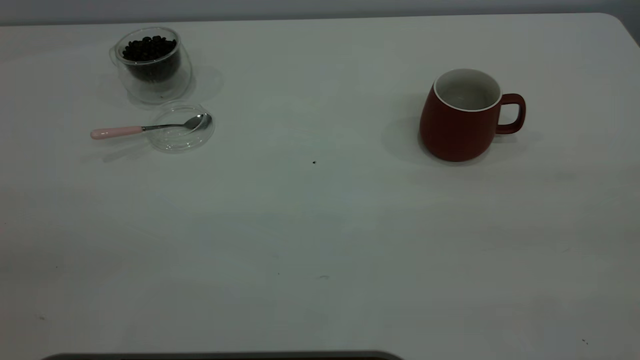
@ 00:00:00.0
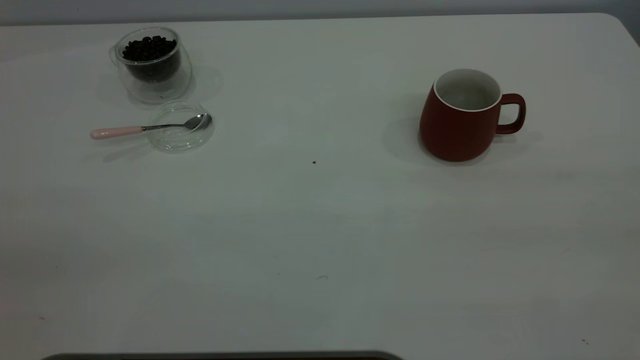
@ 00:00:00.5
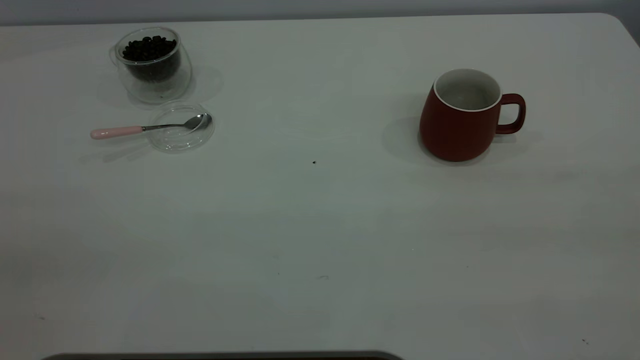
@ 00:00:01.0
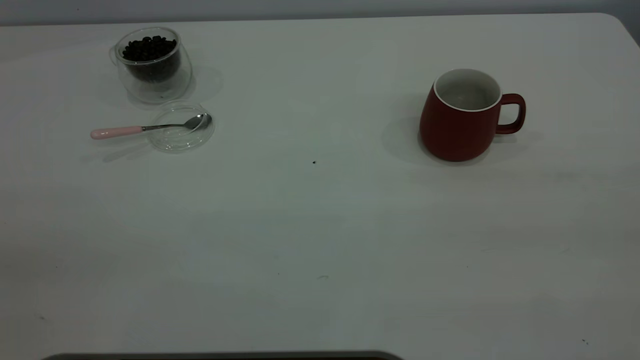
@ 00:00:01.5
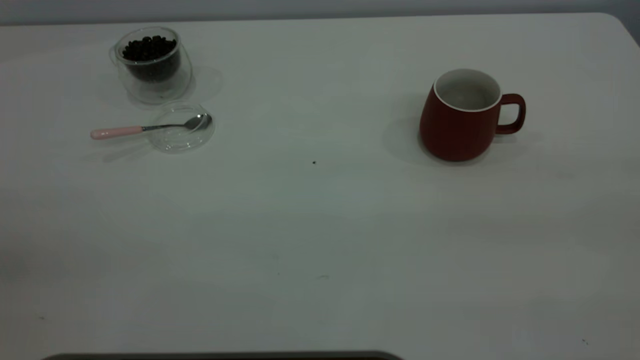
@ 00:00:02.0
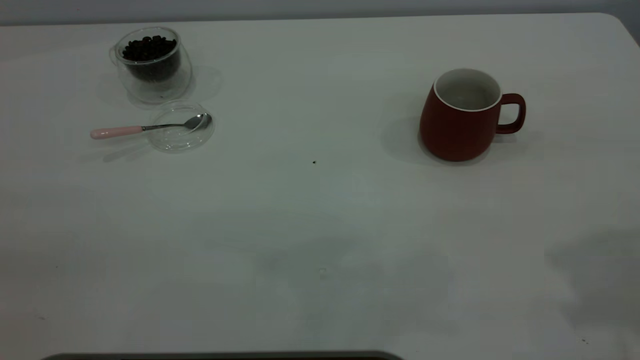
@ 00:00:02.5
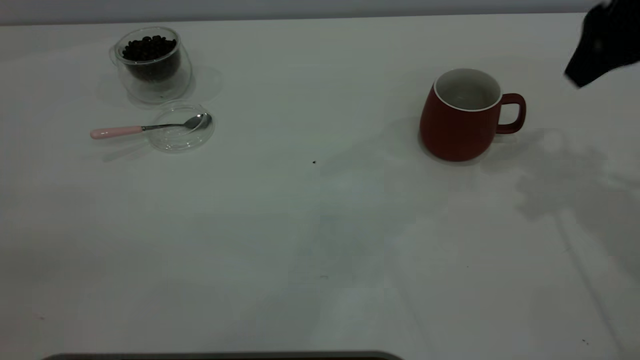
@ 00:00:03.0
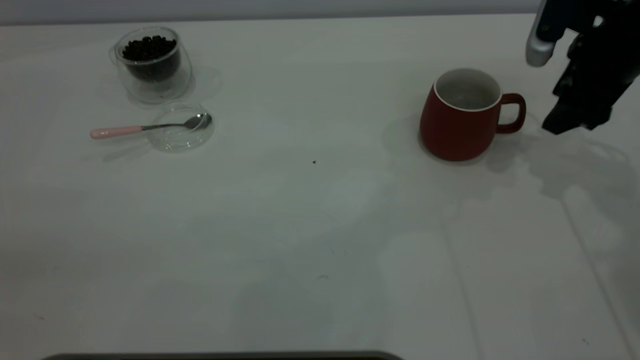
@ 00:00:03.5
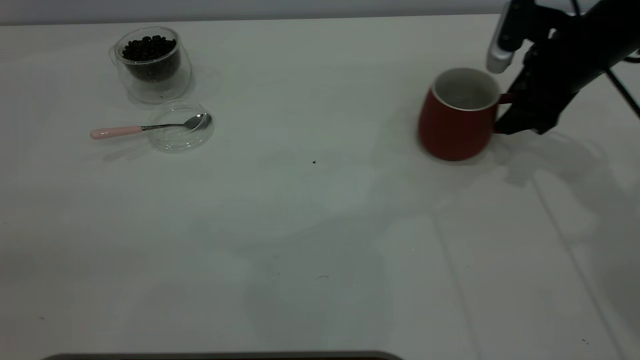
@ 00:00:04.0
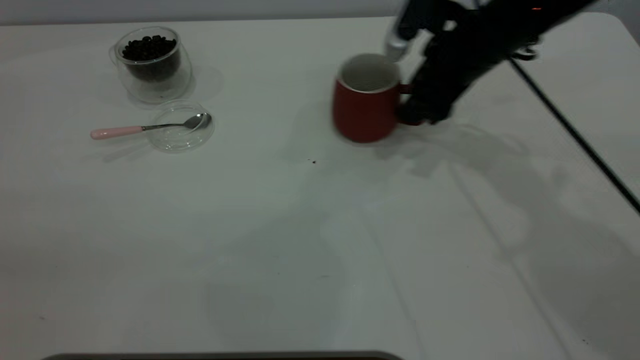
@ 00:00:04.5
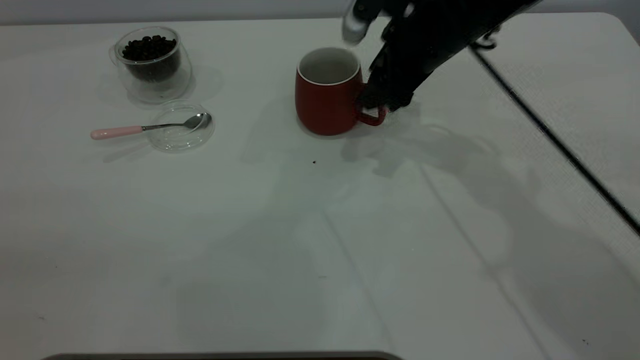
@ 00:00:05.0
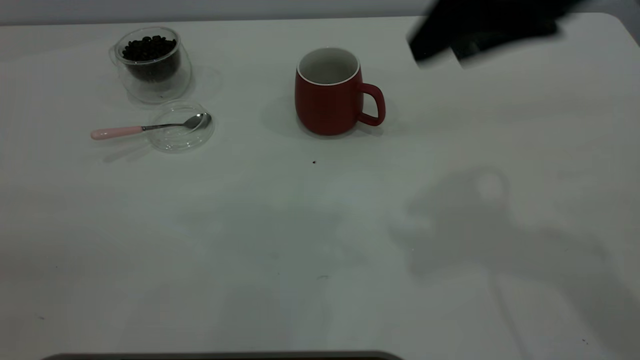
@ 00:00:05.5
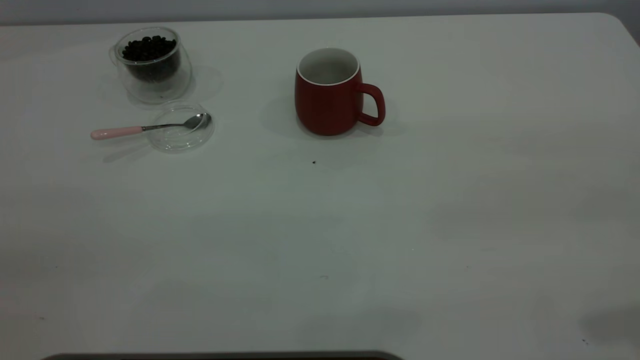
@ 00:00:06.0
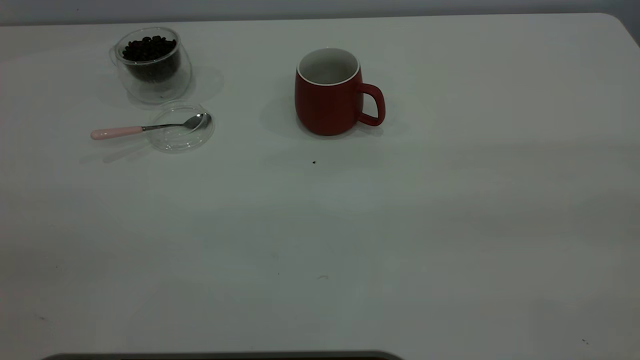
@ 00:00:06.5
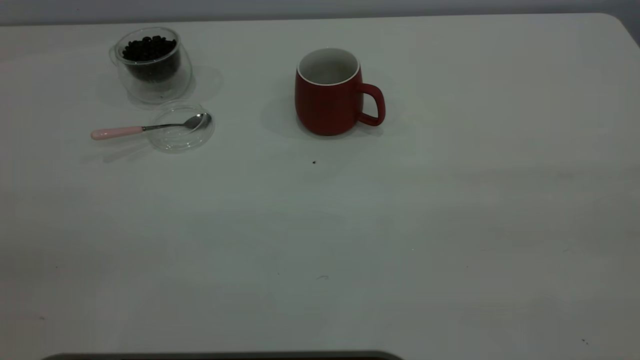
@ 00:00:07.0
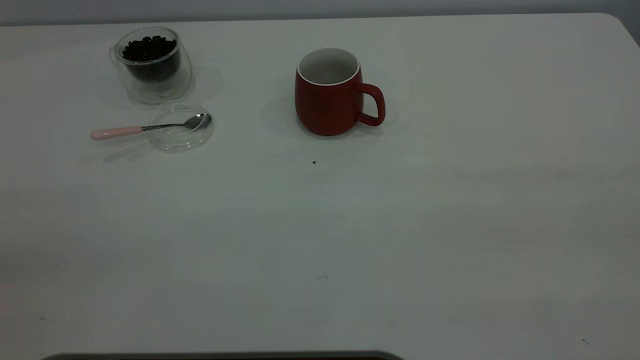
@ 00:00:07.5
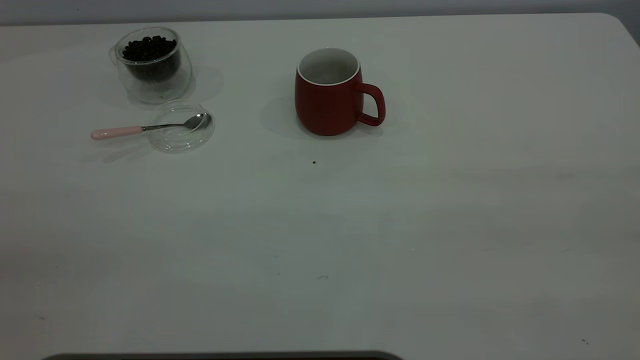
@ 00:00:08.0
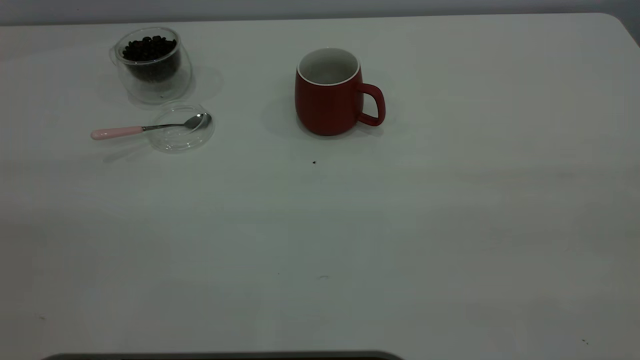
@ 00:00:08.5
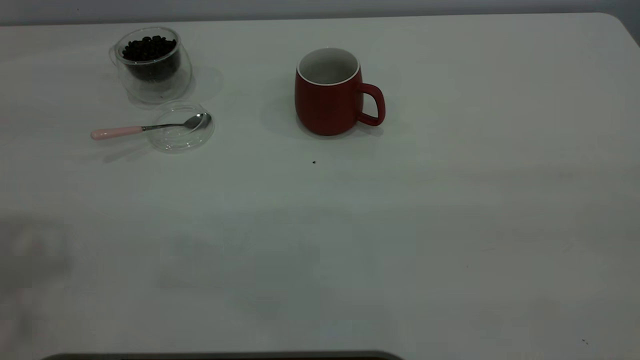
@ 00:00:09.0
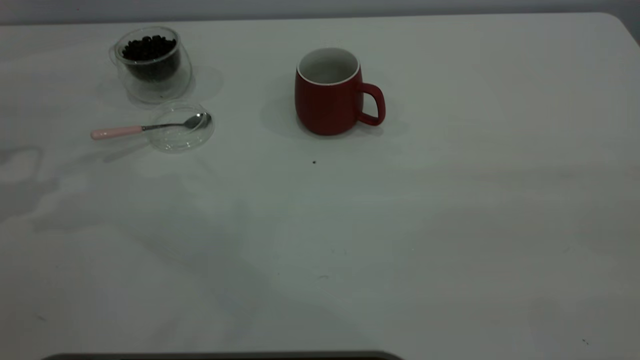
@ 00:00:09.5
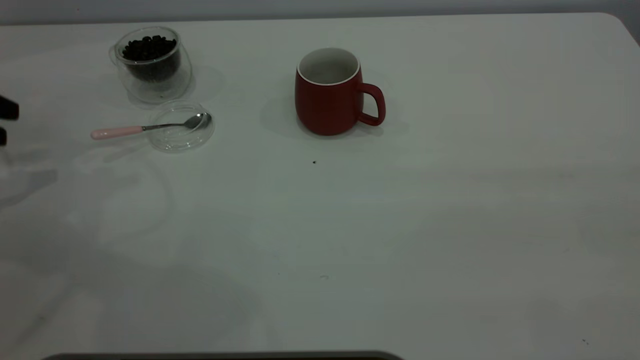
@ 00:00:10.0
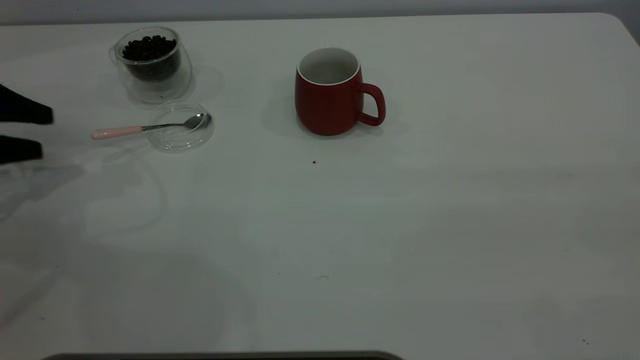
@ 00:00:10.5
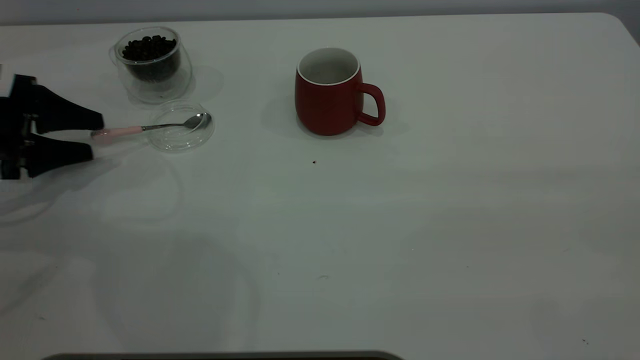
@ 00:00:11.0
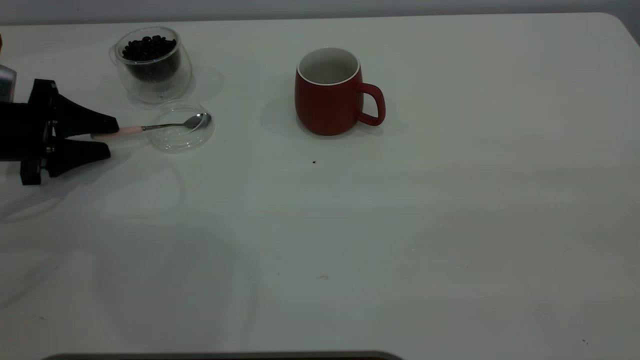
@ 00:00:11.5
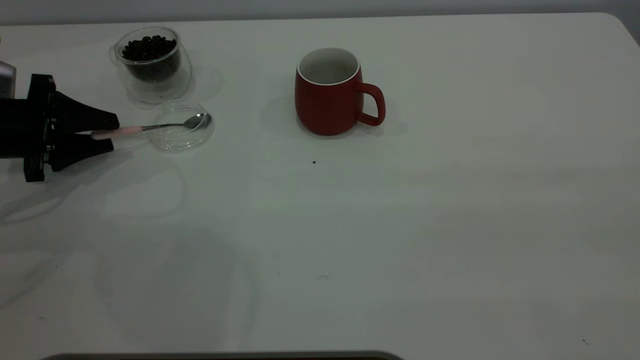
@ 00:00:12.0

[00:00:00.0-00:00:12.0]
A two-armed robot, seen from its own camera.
Task of the whole recording: the right gripper place the red cup in the center of the table, the left gripper take the pink spoon from the cup lid and scoop out the coffee beans from the coffee cup and put them into the red cup, the left gripper put the spoon back into the cup lid.
Step, 00:00:00.0 to 00:00:05.5: Move the cup to the center of view.
00:00:02.0 to 00:00:04.0: The right gripper goes some 50 cm forward and downward, and opens its fingers.
00:00:04.0 to 00:00:06.0: The right gripper is displaced backward and upward by roughly 35 cm.
00:00:10.0 to 00:00:12.0: The left gripper goes approximately 10 cm downward and to the right.

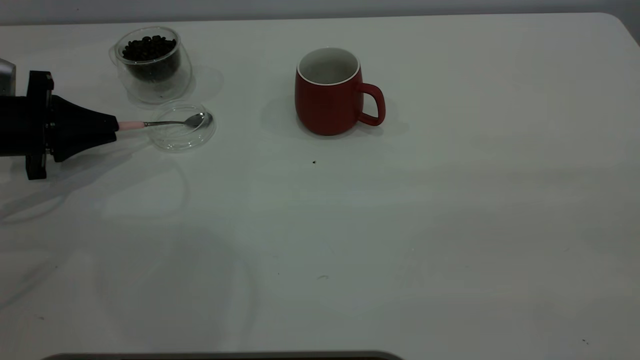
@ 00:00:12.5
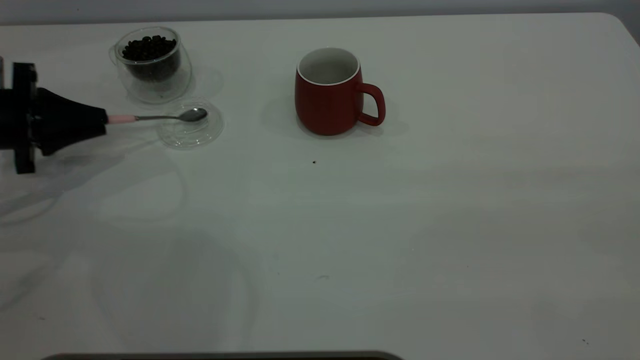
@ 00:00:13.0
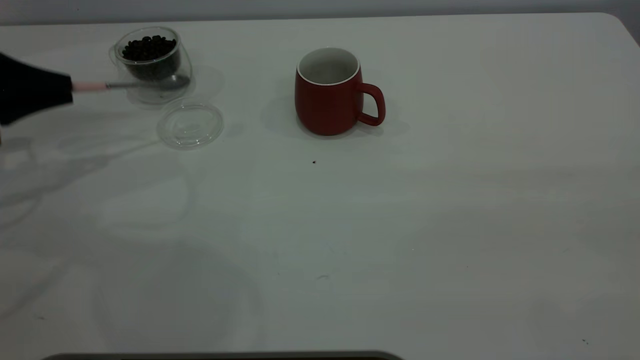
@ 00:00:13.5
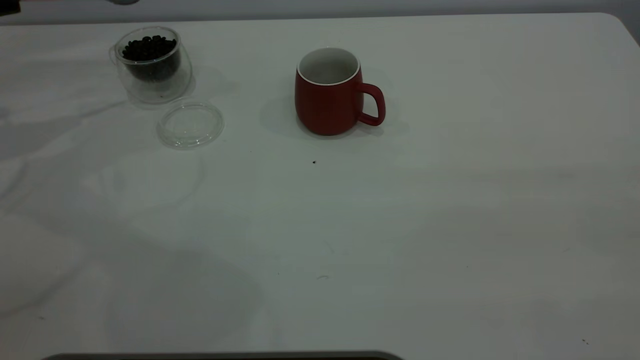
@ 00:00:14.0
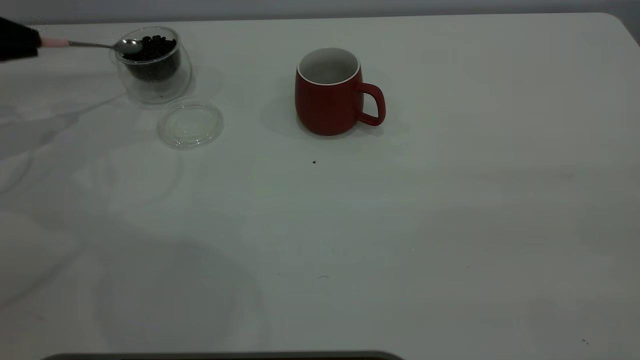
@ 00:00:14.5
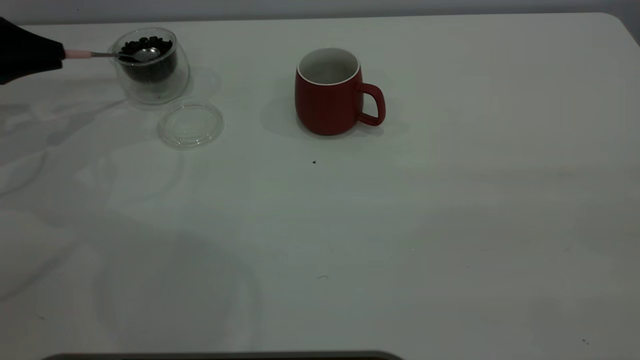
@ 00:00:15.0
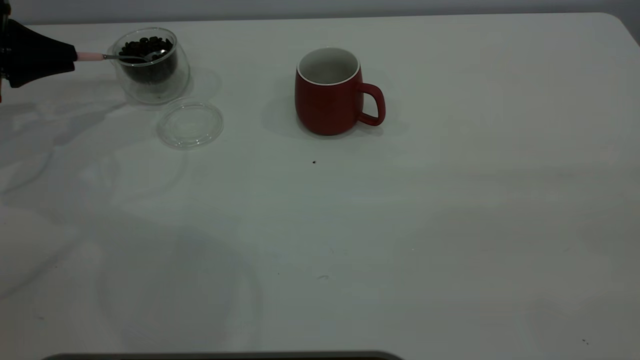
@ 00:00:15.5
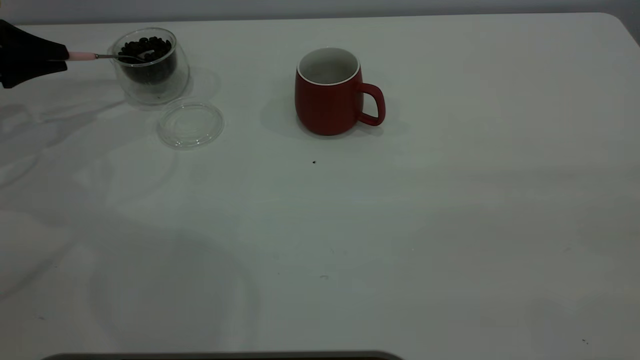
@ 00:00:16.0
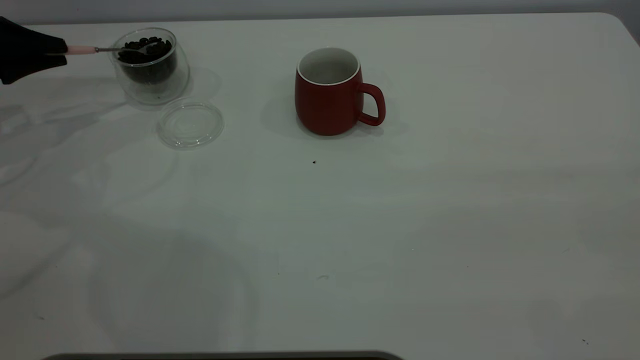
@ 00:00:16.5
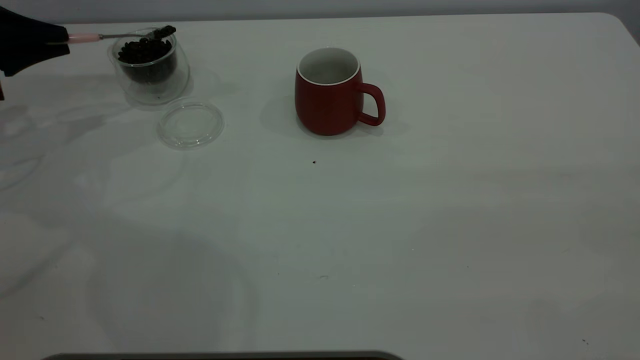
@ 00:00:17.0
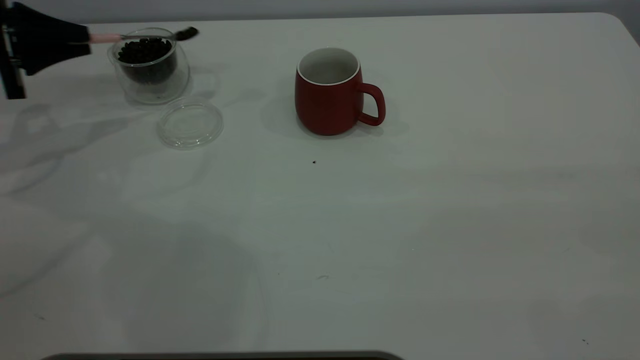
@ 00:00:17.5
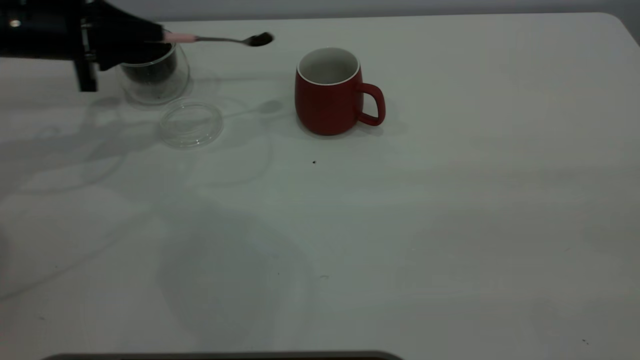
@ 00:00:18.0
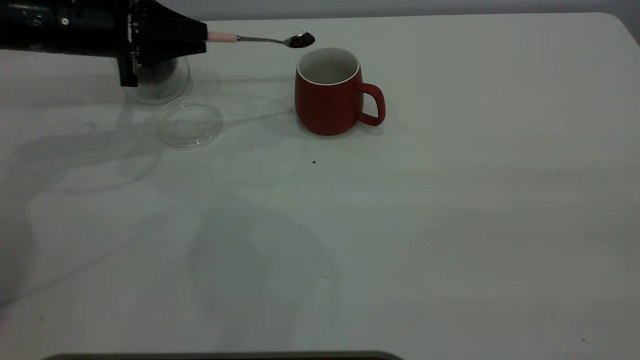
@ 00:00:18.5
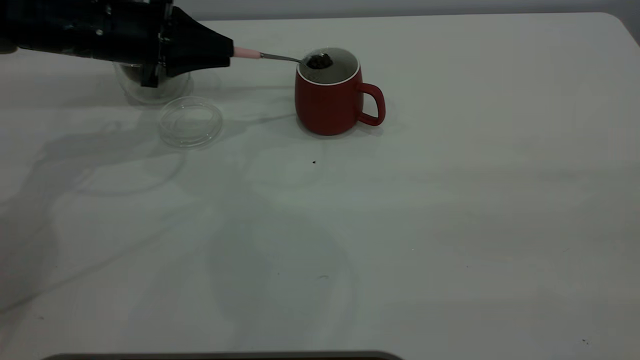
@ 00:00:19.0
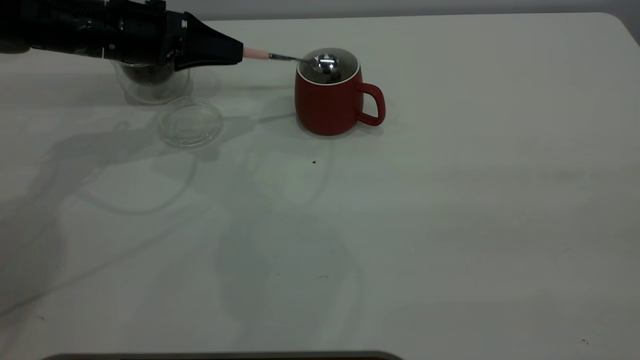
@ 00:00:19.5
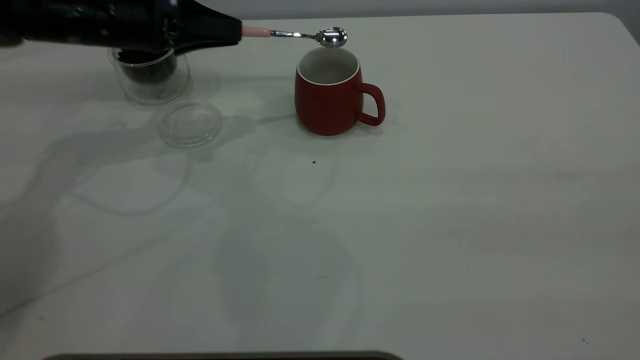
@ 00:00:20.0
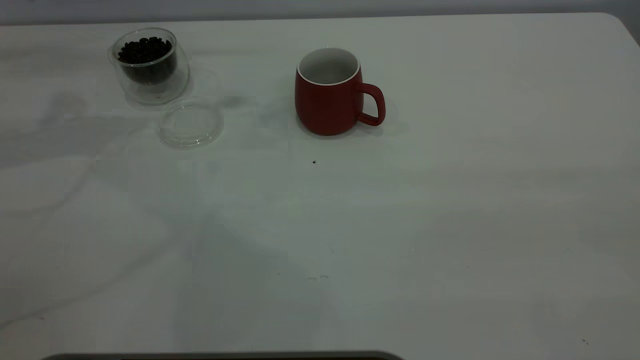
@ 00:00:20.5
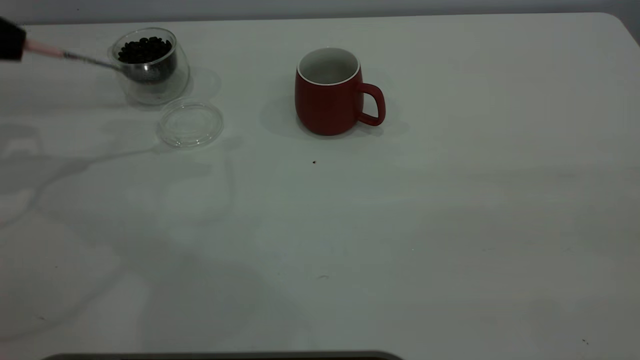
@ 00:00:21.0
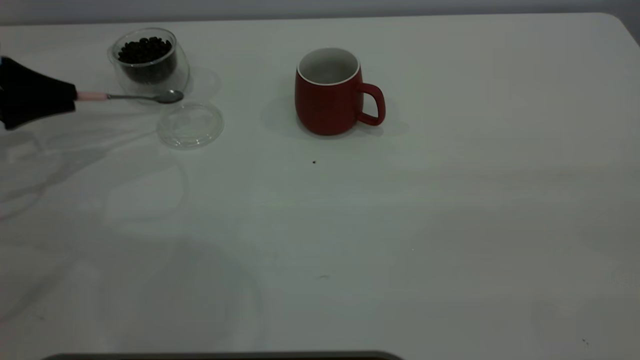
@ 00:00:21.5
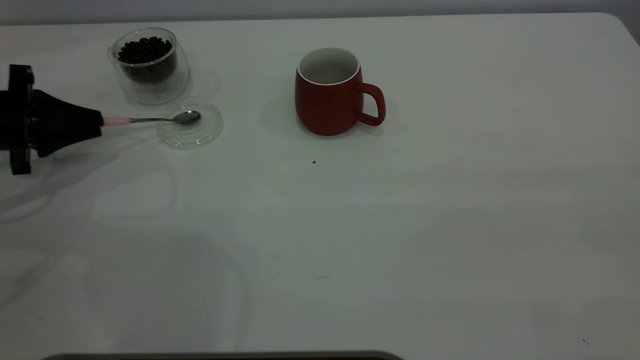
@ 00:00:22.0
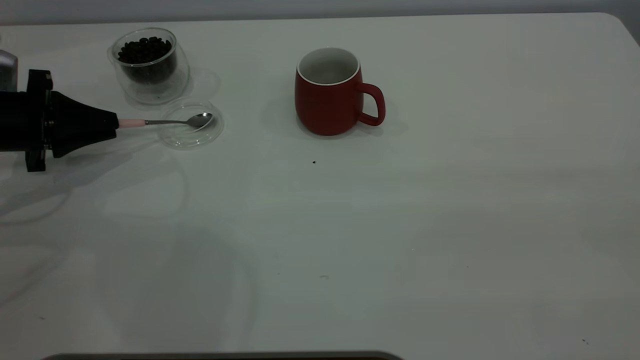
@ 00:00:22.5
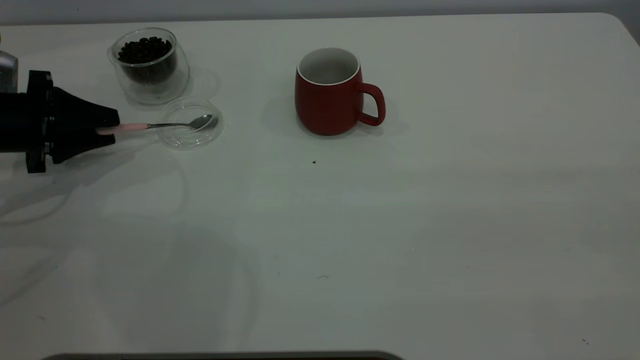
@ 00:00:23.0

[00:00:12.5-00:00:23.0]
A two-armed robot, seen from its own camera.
Task of the whole recording: the right gripper place the red cup in the center of the table, the left gripper take the pink spoon from the cup lid and scoop out the coffee beans from the coffee cup and put them into the red cup, the left gripper put the spoon back into the cup lid.
Step, 00:00:14.0 to 00:00:20.0: Scoop a spoonful of beans into the cup.
00:00:12.5 to 00:00:14.5: The left gripper goes some 10 cm upward, to the left and forward.
00:00:16.5 to 00:00:19.0: The left gripper heads to the right, covering approximately 20 cm.
00:00:19.0 to 00:00:21.0: The left gripper shifts some 20 cm to the left and upward.
00:00:21.0 to 00:00:23.0: The left gripper heads downward, covering roughly 15 cm, and opens its fingers.
